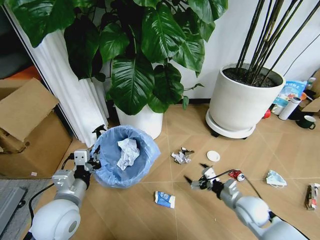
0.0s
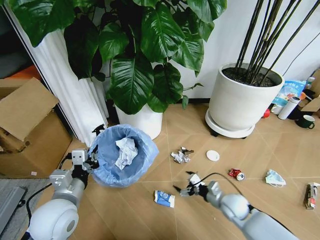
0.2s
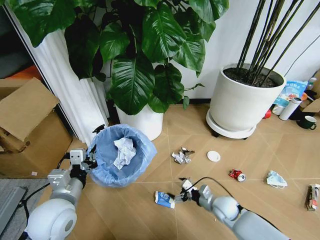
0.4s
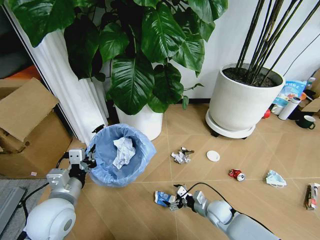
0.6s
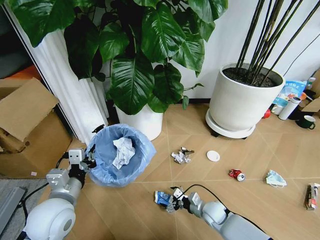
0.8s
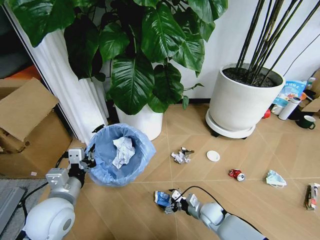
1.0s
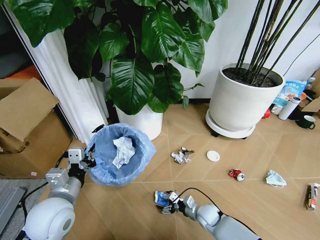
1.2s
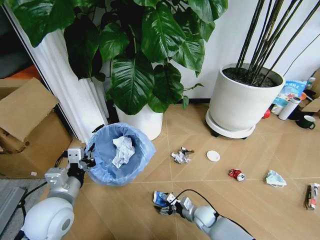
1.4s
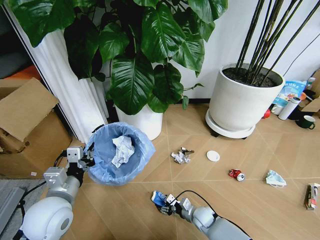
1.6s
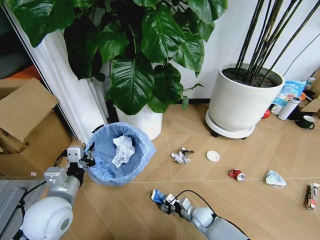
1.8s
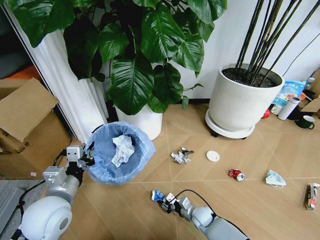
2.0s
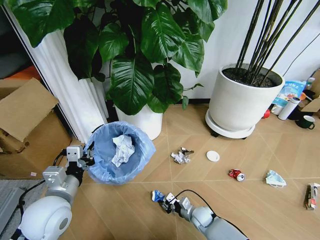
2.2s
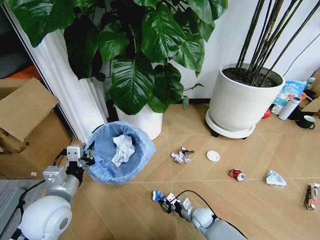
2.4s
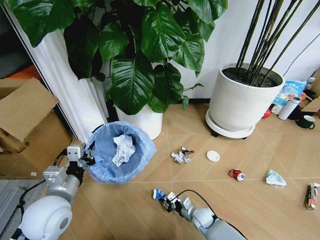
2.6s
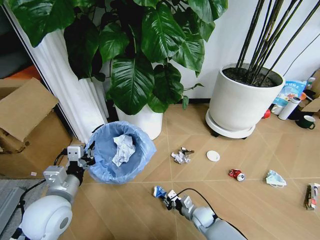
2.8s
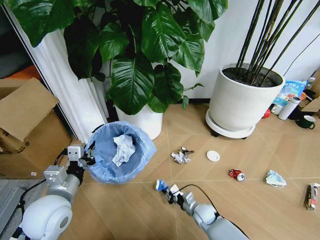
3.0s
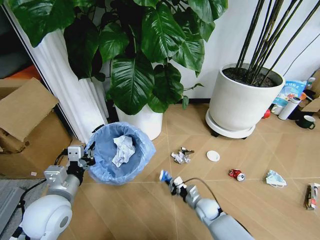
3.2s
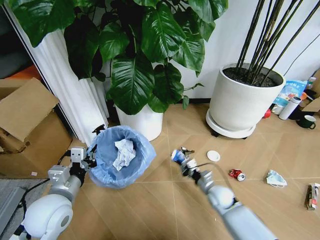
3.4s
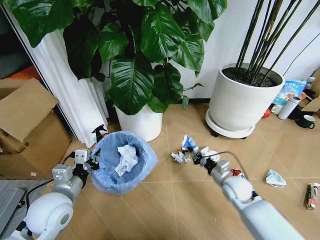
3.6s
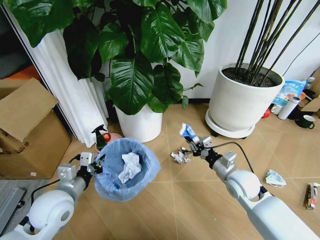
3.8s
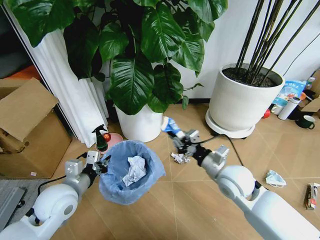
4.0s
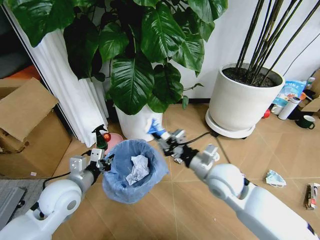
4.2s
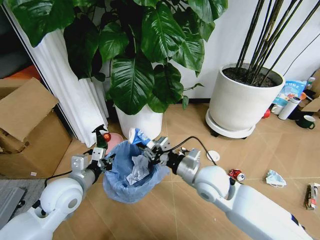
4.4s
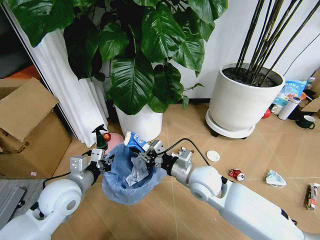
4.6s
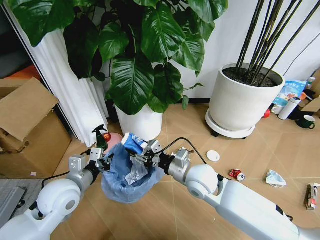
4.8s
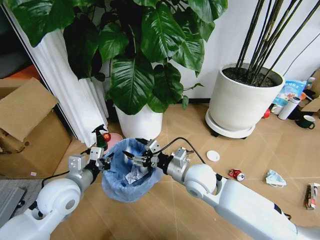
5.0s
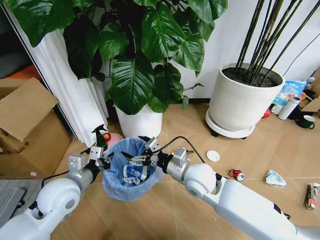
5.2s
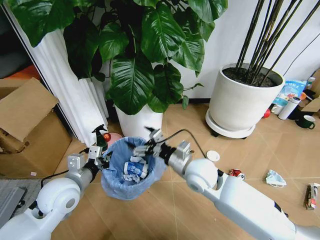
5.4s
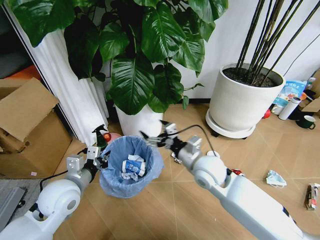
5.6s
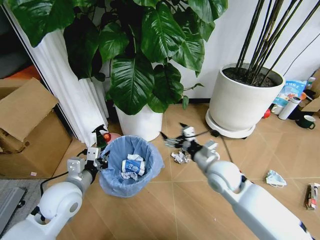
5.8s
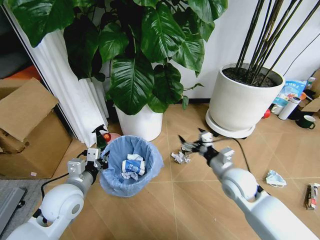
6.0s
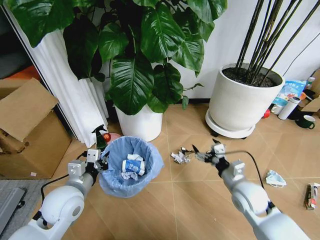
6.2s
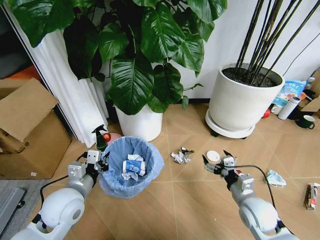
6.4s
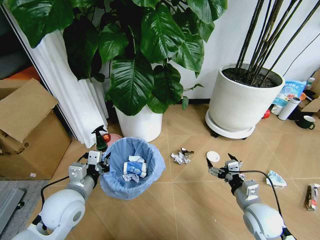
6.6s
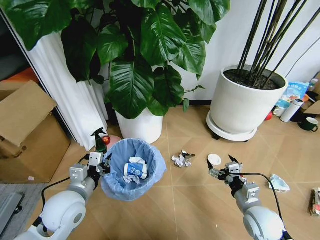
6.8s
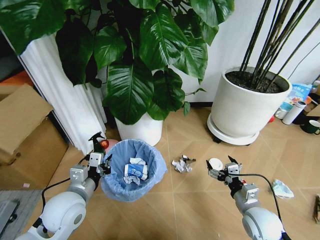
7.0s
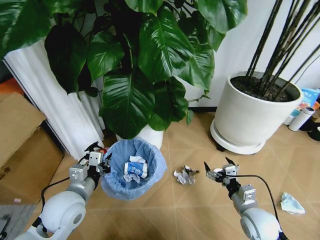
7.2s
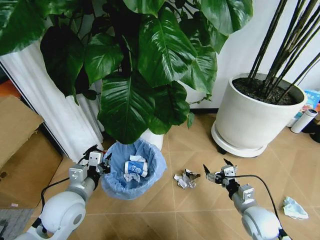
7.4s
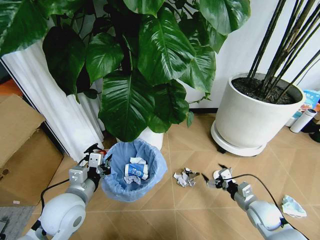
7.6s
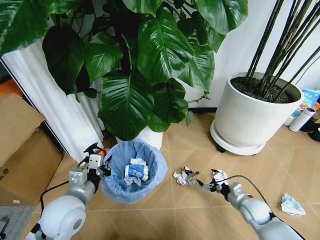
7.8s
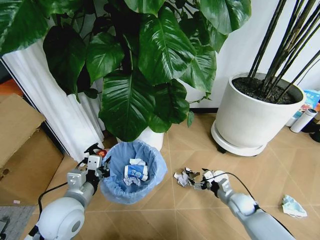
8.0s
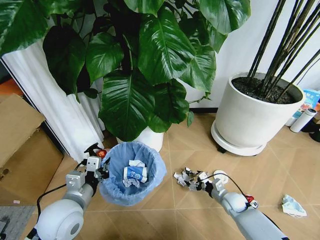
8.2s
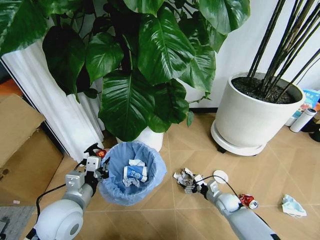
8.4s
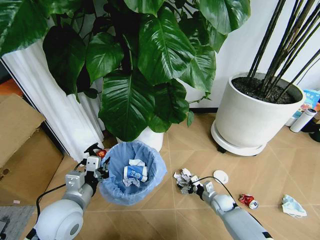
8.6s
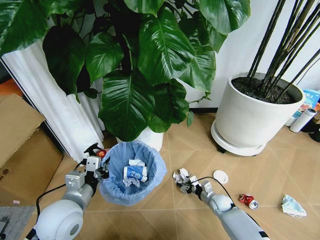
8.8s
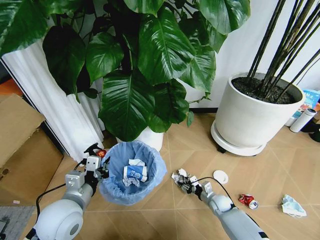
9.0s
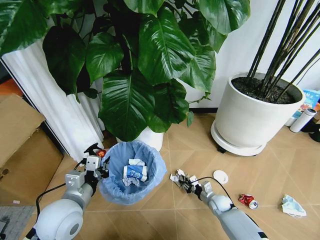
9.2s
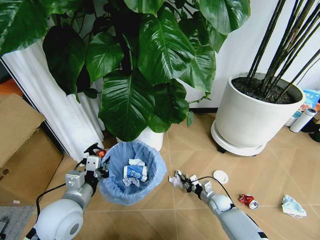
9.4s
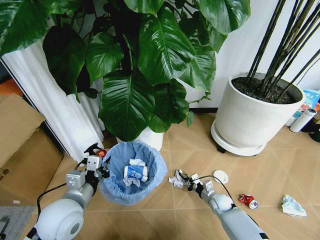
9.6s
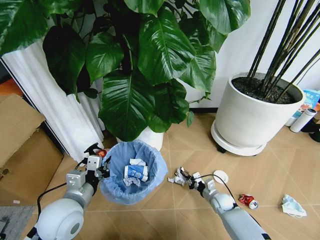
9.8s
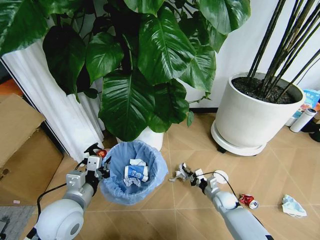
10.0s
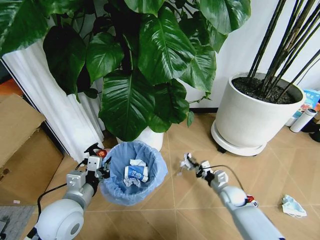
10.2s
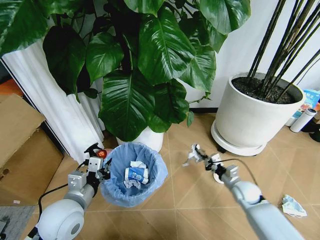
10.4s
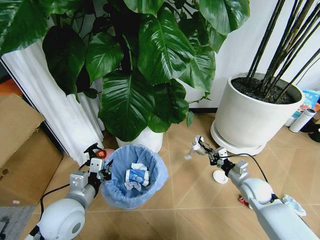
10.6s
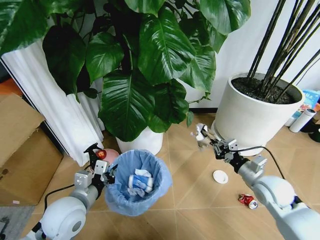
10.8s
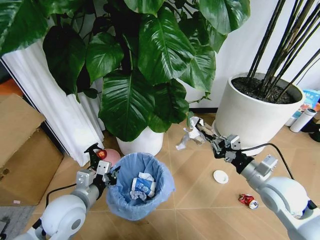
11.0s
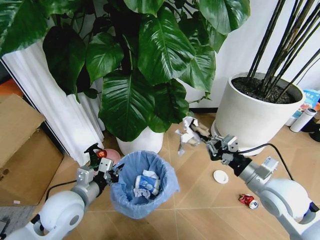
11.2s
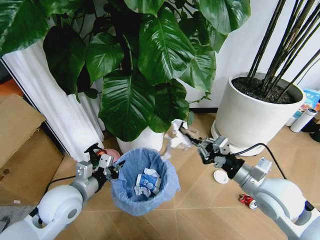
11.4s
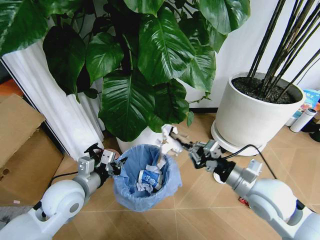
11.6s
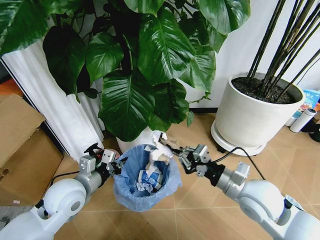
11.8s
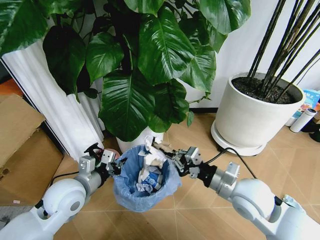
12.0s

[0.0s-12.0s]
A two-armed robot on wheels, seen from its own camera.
Task of the whole recording: Pick up the trash bin and place the garbage on the floor into it.
0.0s to 1.6s: The right gripper heads downward and to the left, covering approximately 20 cm, and closes up.
1.6s to 3.0s: The right gripper closes up.
3.0s to 4.4s: The right gripper goes some 30 cm upward, while the left gripper is displaced forward by approximately 5 cm.
4.4s to 6.0s: The right gripper heads to the right, covering some 10 cm, and opens.
6.0s to 7.6s: The right gripper moves downward, to the right and backward, about 20 cm.
7.6s to 9.0s: The right gripper is displaced downward, to the left and forward by some 20 cm, and closes up.
9.0s to 10.4s: The right gripper heads upward and to the right, covering approximately 15 cm, and closes up.
10.4s to 12.0s: The left gripper changes place by about 5 cm, while the right gripper is displaced upward, to the left and backward by approximately 25 cm.

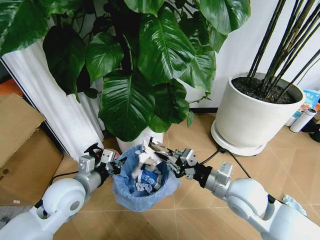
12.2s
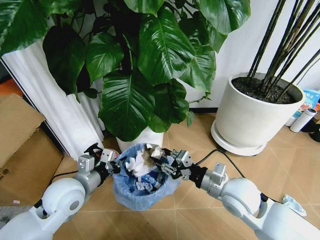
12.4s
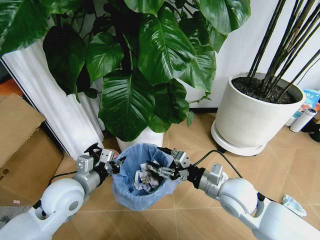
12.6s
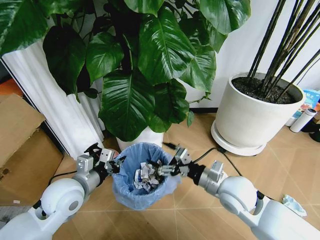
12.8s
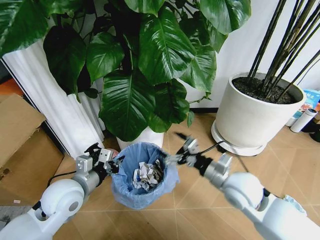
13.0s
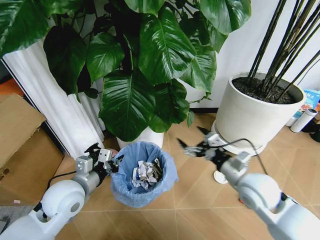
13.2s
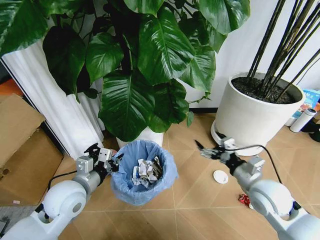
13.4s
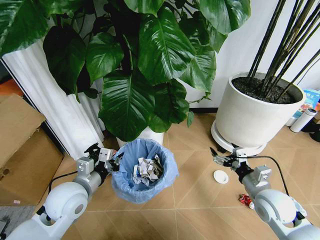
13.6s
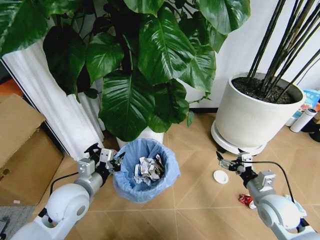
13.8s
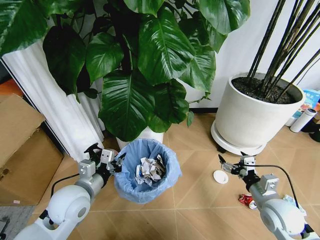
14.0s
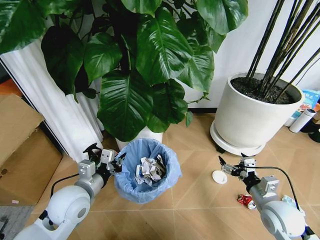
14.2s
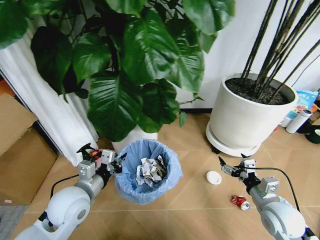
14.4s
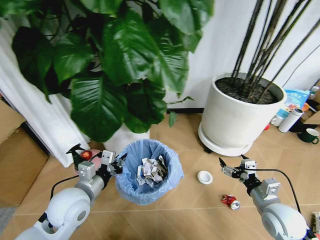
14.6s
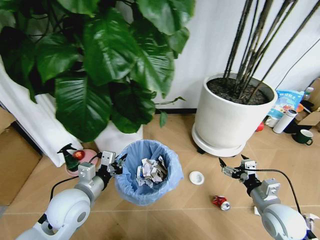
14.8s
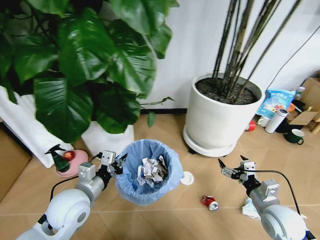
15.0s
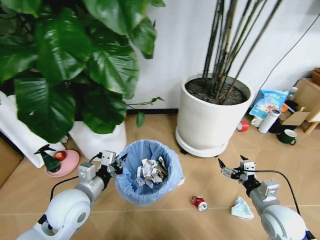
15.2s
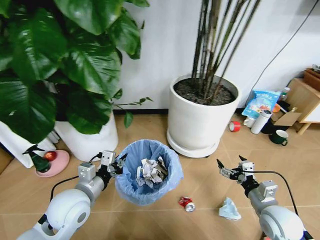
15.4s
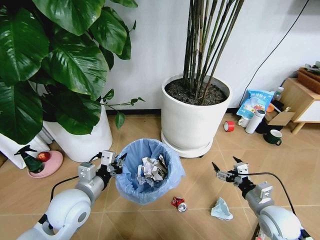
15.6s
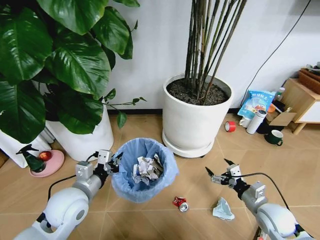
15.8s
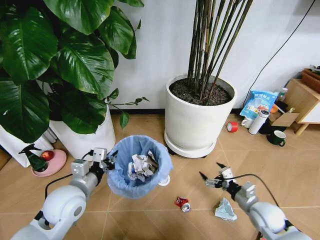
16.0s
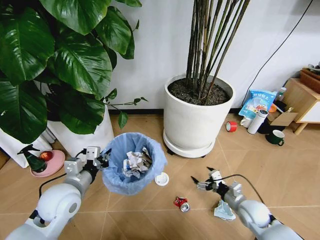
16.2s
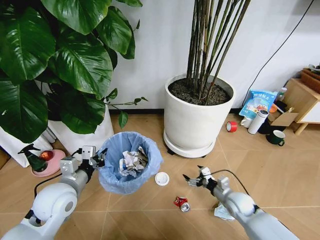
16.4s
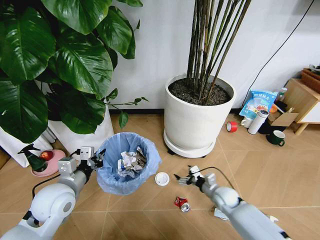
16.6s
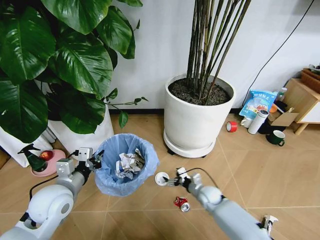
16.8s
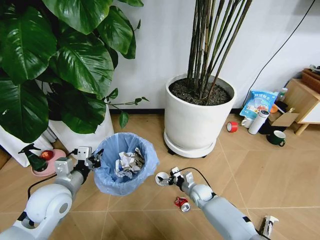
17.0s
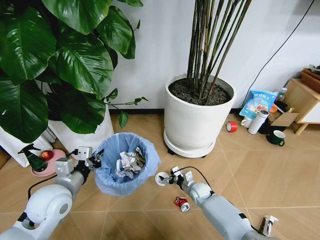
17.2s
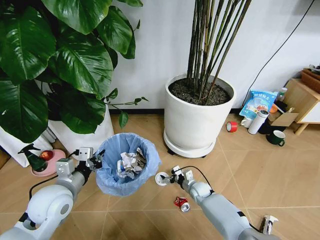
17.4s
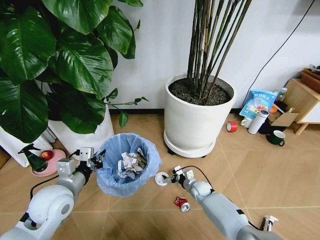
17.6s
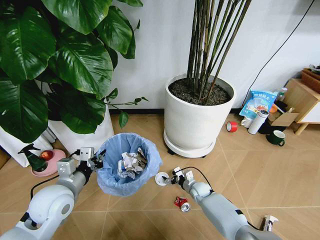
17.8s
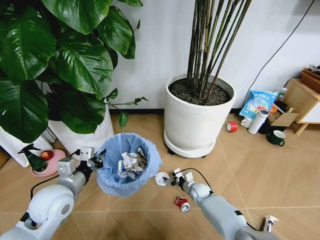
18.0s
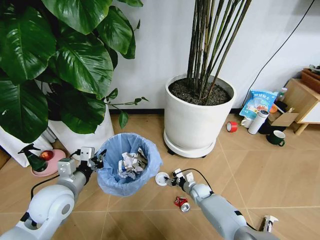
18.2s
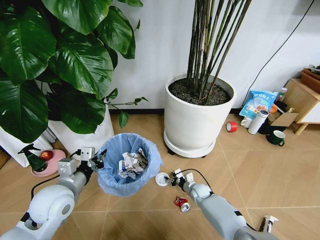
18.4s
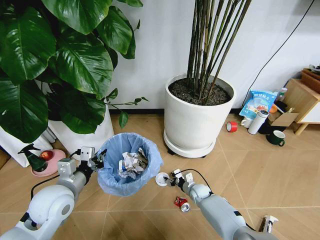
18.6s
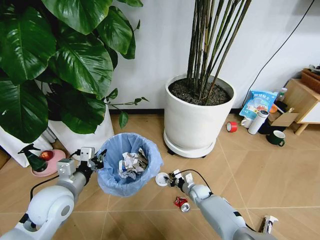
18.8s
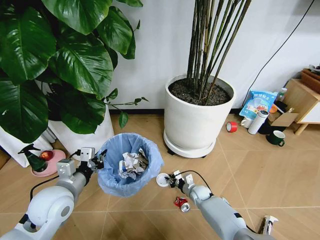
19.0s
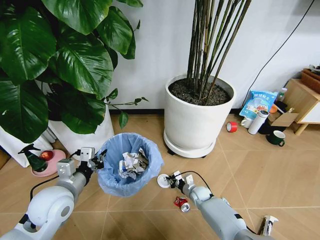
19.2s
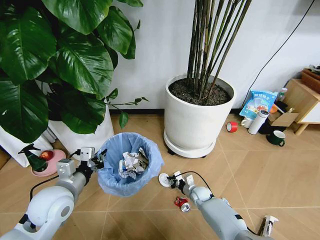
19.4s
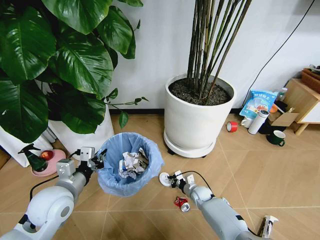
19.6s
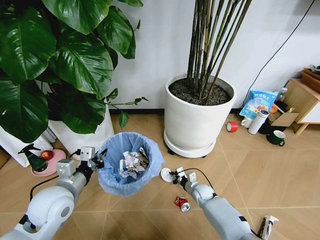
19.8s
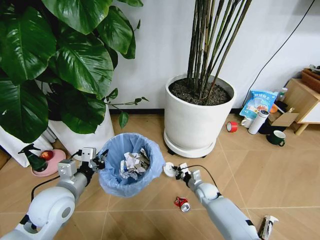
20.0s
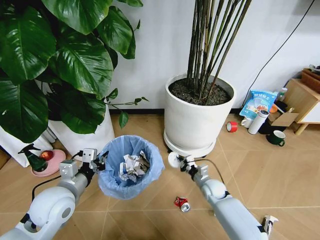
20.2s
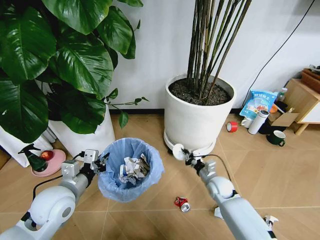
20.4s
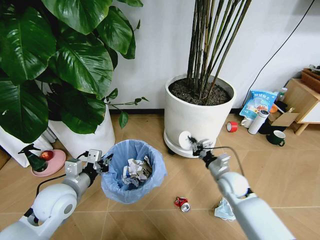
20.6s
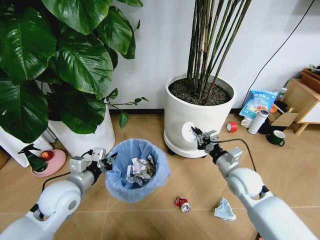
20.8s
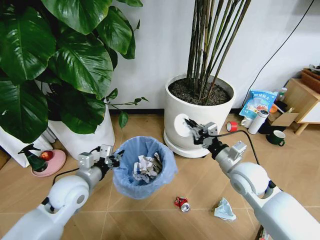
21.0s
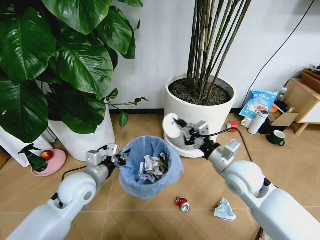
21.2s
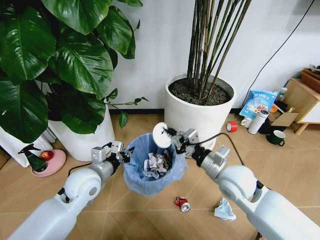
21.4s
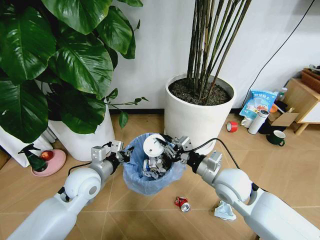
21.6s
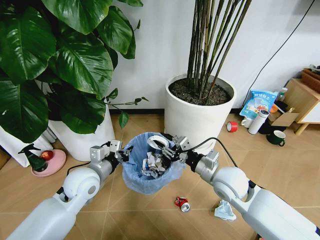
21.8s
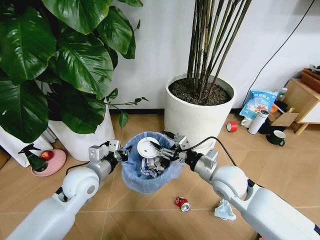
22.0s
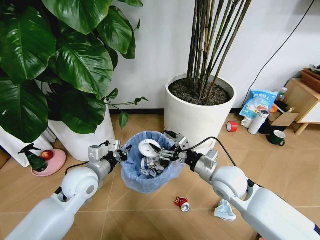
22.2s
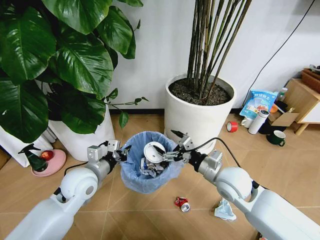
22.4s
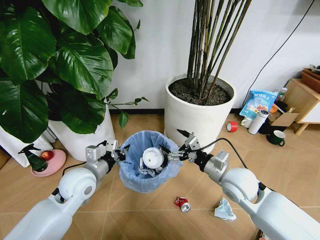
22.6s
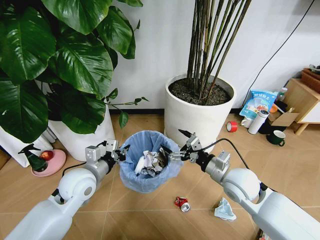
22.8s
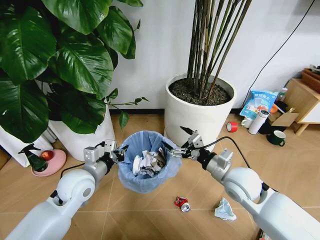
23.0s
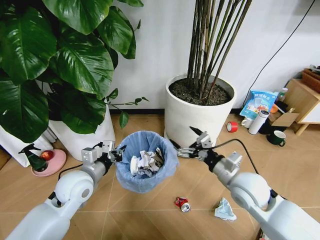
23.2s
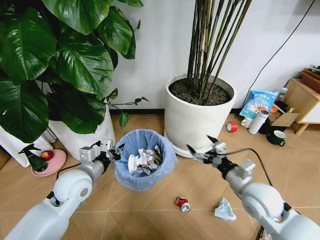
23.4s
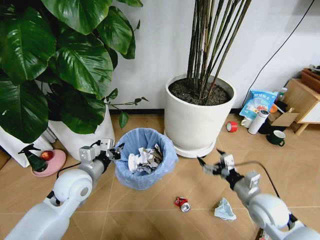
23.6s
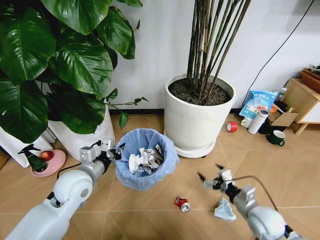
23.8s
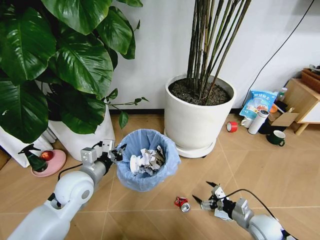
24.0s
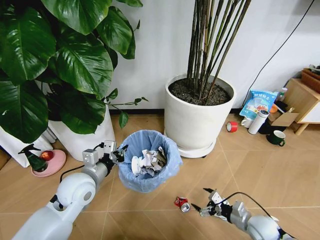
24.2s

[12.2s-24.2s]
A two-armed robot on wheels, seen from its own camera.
Task of the whole recording: Pick up the trash bin and place the garbage on the floor into it.
12.2s to 13.8s: The right gripper goes approximately 15 cm to the right and downward, and opens its fingers.
15.2s to 16.6s: The left gripper ends up some 5 cm from where it was. The right gripper is displaced downward, forward and to the left by approximately 20 cm.
16.6s to 18.2s: The right gripper travels downward, to the left and forward by about 15 cm.
18.2s to 19.8s: The right gripper closes.
19.8s to 21.2s: The right gripper travels upward by approximately 35 cm, while the left gripper moves forward, approximately 5 cm.
21.2s to 22.6s: The right gripper opens its fingers.
22.6s to 24.2s: The right gripper is displaced downward, to the right and backward by about 25 cm.
